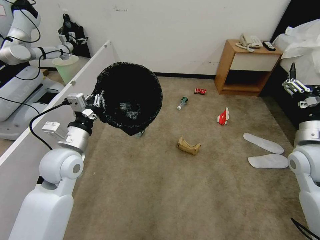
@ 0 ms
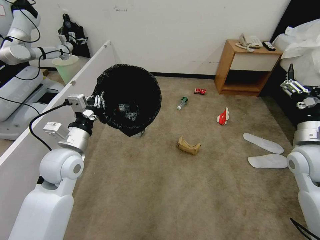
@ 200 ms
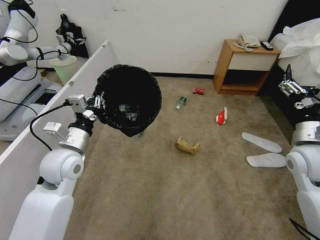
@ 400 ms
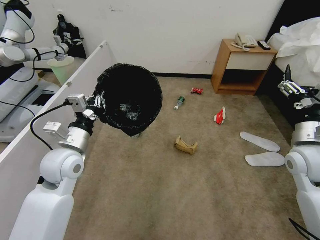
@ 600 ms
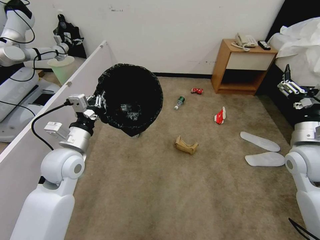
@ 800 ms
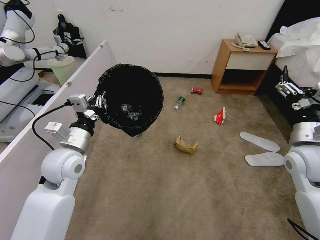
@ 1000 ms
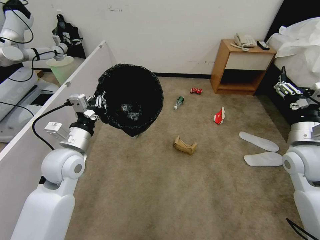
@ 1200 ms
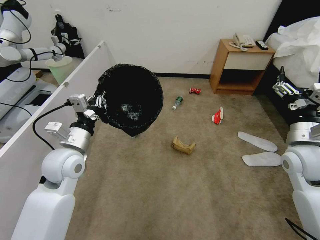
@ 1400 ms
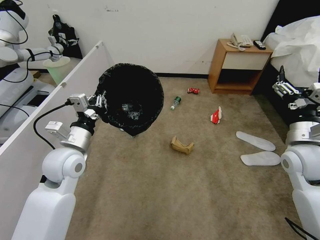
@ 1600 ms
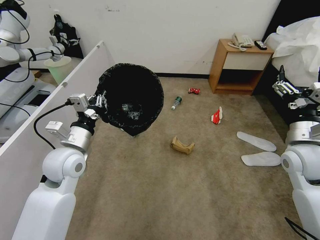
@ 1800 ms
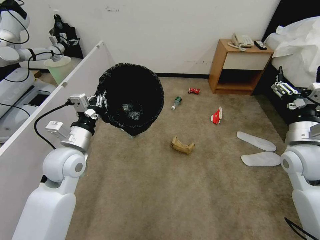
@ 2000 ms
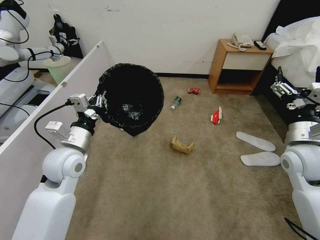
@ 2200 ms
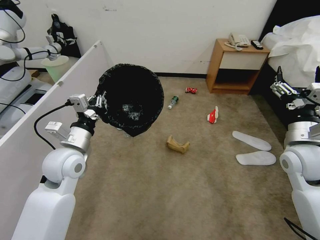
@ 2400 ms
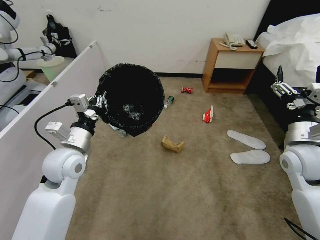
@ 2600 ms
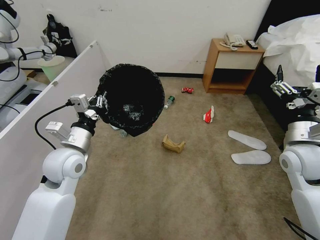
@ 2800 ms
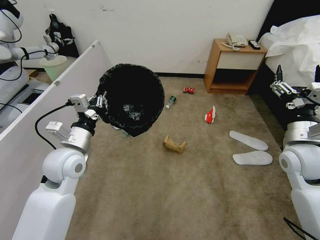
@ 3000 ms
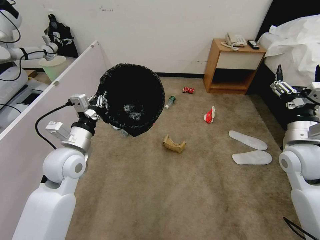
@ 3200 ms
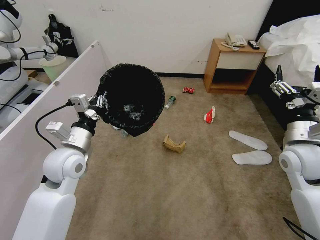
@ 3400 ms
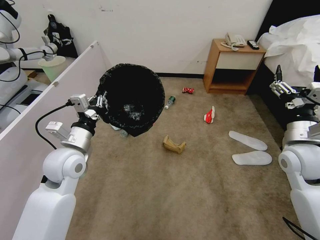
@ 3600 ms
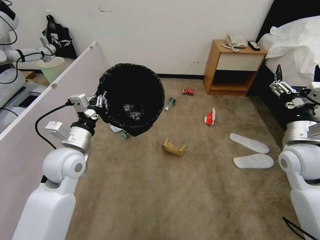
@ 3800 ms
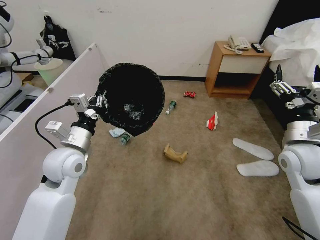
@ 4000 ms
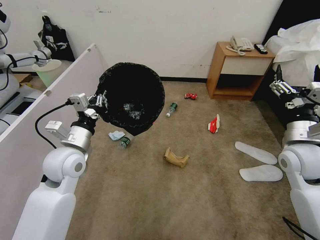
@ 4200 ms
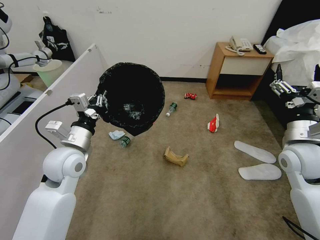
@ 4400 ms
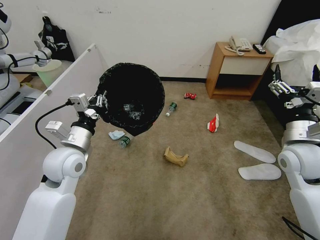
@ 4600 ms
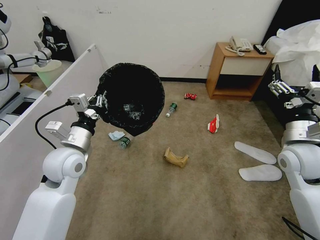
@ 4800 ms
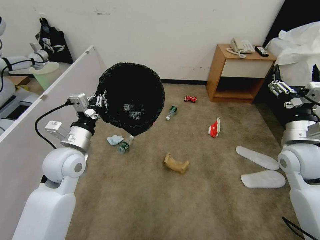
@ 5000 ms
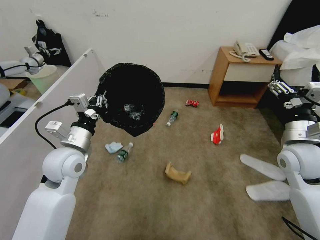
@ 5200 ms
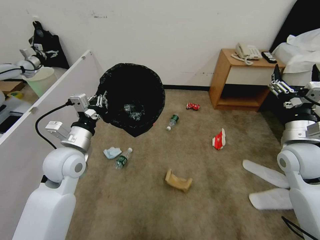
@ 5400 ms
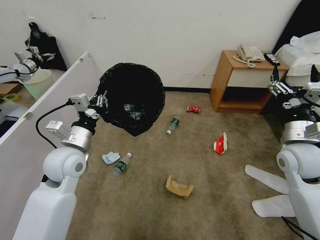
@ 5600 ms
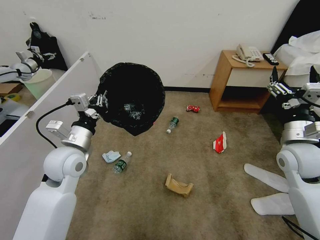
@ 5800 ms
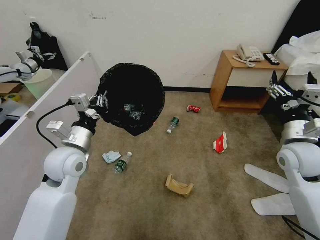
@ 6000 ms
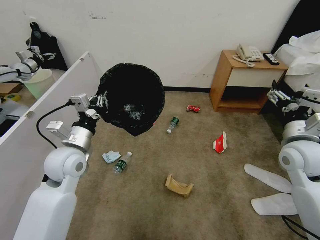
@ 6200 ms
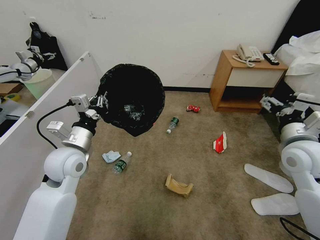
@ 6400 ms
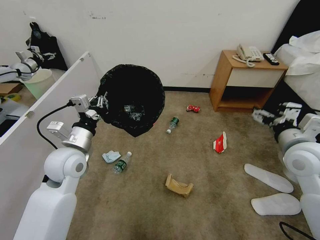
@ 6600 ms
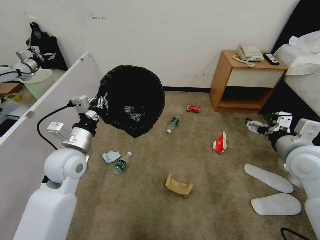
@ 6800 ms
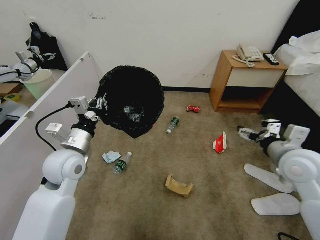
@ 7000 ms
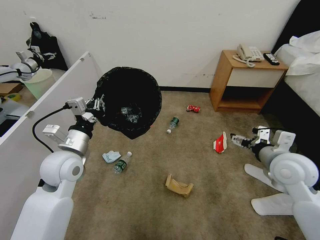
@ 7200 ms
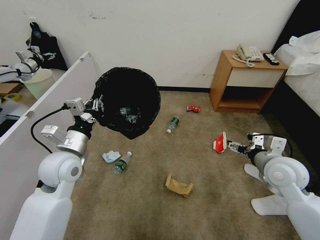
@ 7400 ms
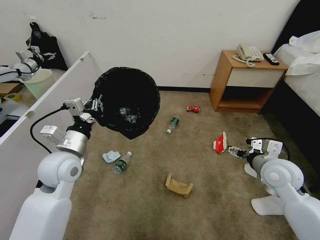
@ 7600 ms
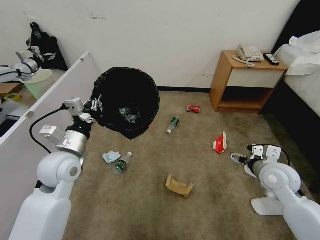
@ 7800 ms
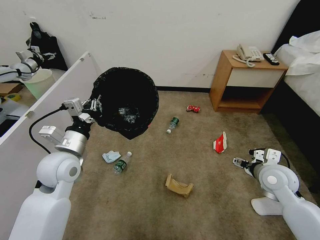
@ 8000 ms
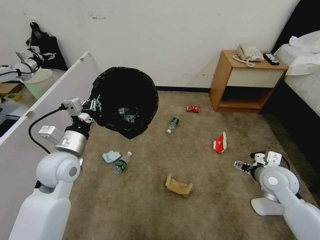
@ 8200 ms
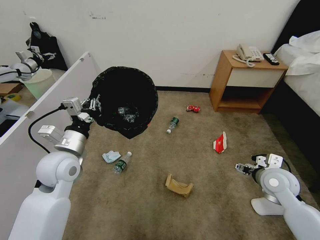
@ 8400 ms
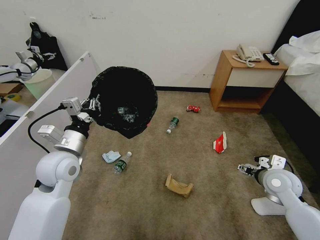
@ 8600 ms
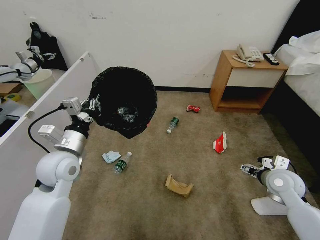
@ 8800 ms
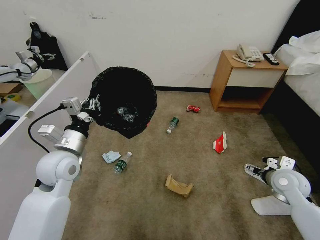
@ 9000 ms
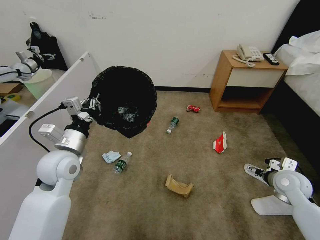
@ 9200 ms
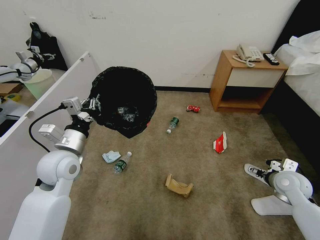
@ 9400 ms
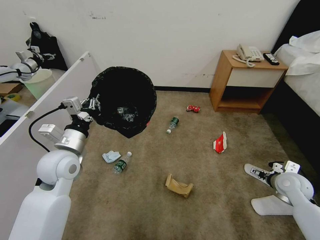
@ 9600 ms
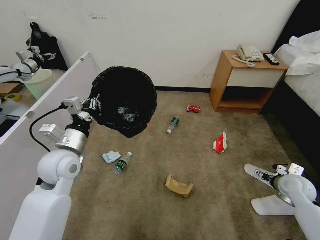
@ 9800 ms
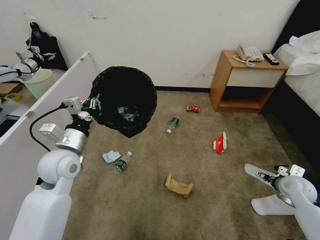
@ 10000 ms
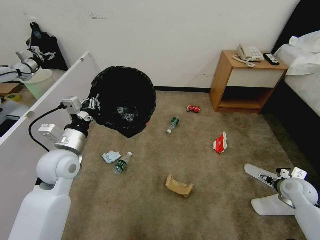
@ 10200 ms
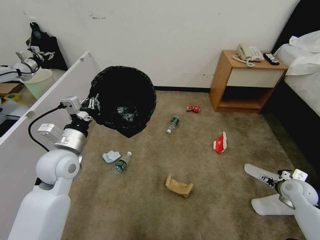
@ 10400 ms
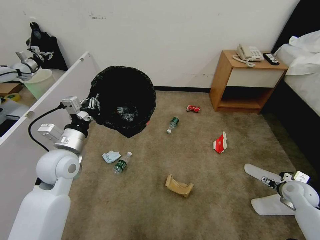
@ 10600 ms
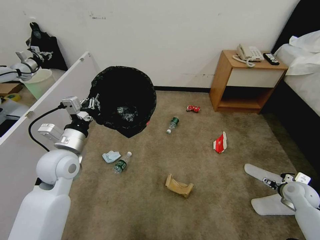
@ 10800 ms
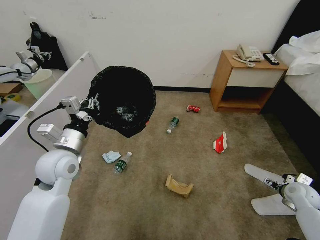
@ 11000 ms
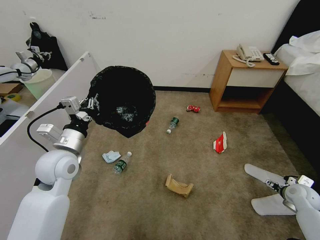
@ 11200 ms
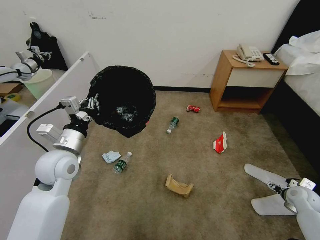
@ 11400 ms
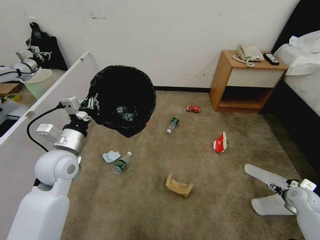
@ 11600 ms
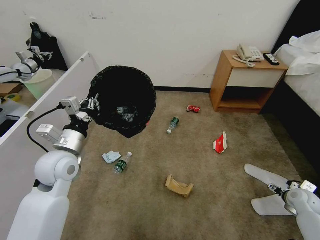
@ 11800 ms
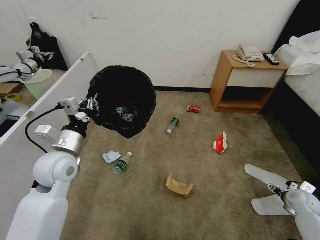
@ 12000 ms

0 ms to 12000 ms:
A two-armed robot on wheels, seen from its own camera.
Task of the whole recording: Pick up the trash bin, then pick up the garbage from the floor and place it into the trash bin.
1600 ms to 4400 ms: Both grippers stay about where they are.
6000 ms to 7600 ms: The right gripper moves downward, some 5 cm.
7600 ms to 9000 ms: The right gripper heads to the right and downward, covering roughly 10 cm.
9000 ms to 10400 ms: The right gripper shifts roughly 10 cm to the right and downward.
10400 ms to 12000 ms: The right gripper shifts approximately 5 cm downward.

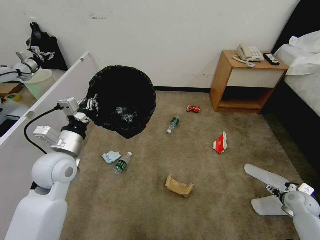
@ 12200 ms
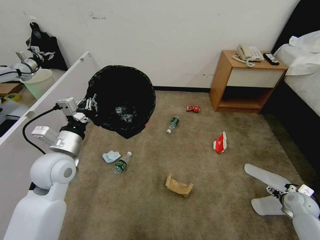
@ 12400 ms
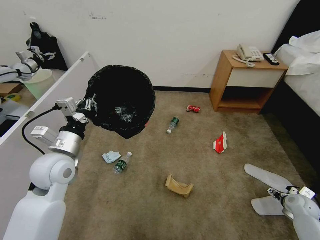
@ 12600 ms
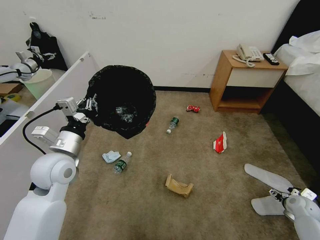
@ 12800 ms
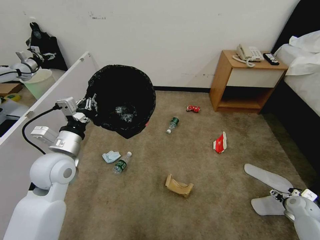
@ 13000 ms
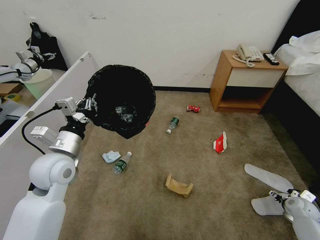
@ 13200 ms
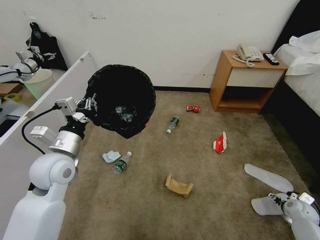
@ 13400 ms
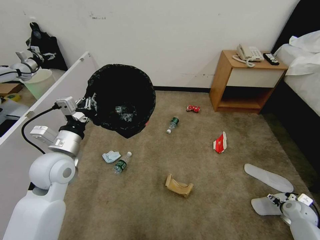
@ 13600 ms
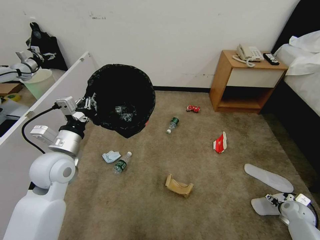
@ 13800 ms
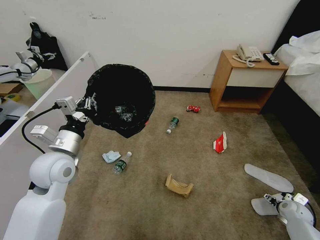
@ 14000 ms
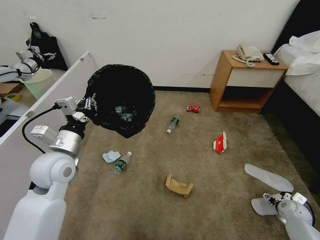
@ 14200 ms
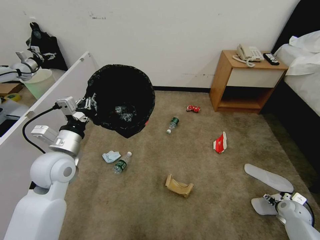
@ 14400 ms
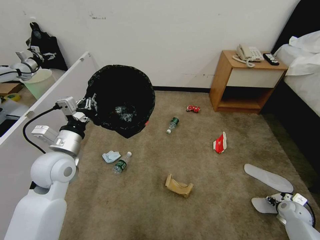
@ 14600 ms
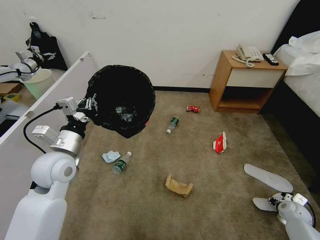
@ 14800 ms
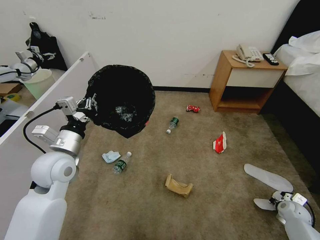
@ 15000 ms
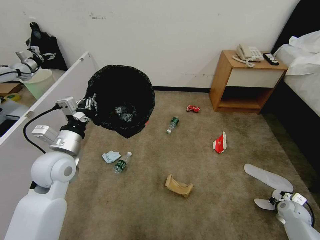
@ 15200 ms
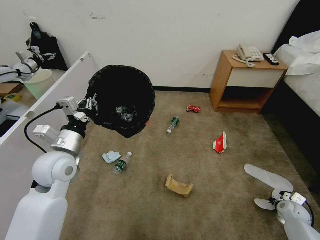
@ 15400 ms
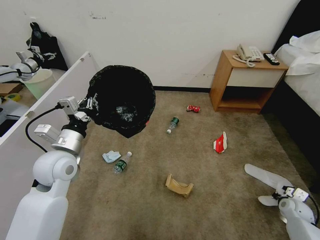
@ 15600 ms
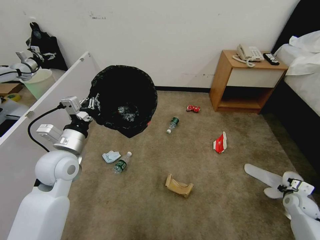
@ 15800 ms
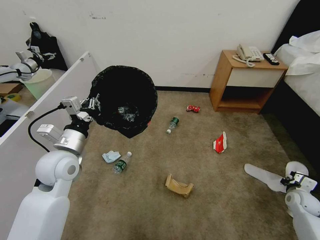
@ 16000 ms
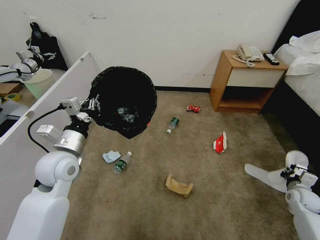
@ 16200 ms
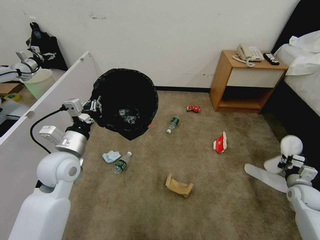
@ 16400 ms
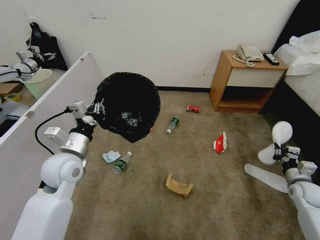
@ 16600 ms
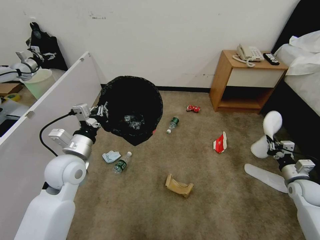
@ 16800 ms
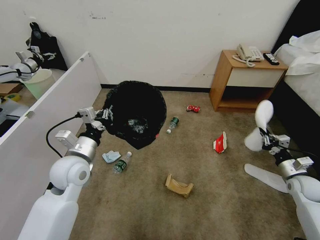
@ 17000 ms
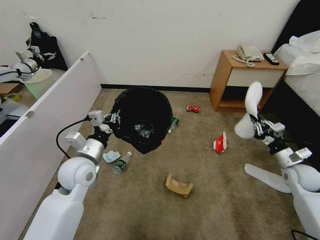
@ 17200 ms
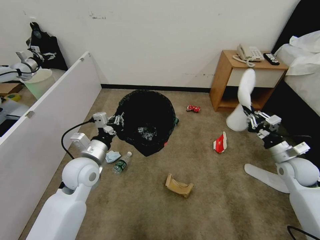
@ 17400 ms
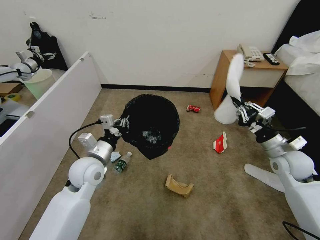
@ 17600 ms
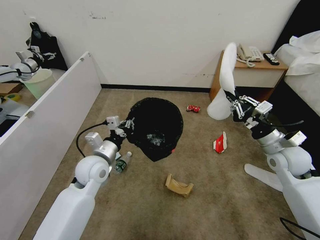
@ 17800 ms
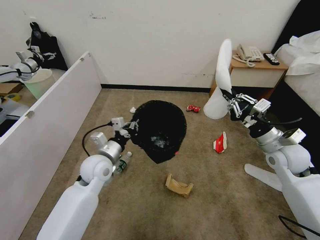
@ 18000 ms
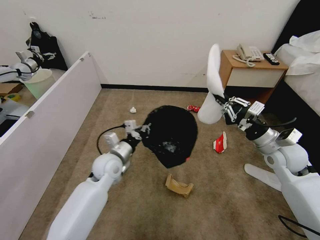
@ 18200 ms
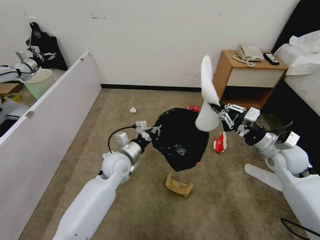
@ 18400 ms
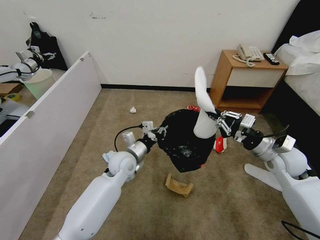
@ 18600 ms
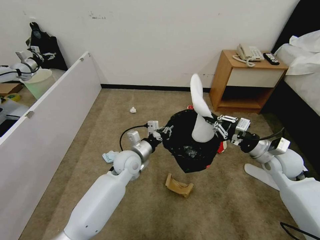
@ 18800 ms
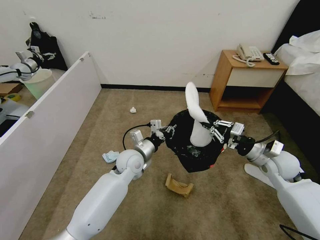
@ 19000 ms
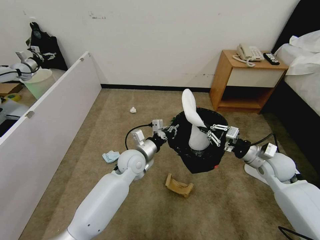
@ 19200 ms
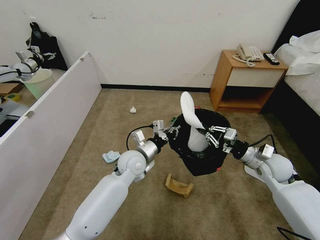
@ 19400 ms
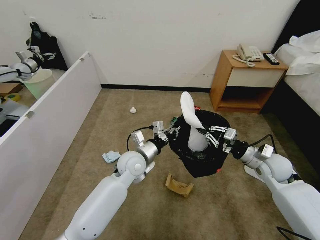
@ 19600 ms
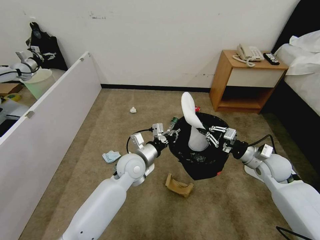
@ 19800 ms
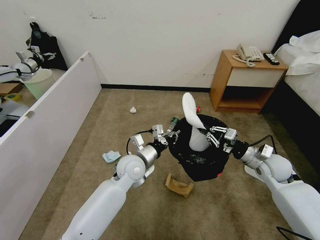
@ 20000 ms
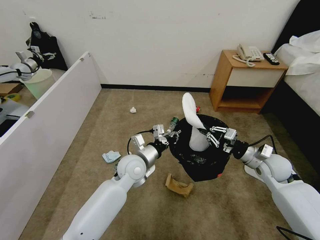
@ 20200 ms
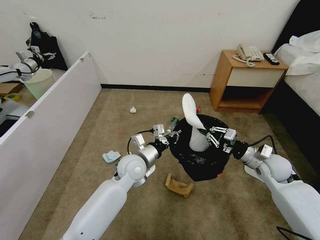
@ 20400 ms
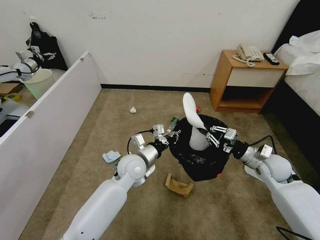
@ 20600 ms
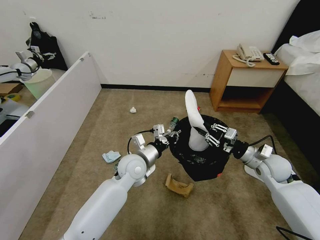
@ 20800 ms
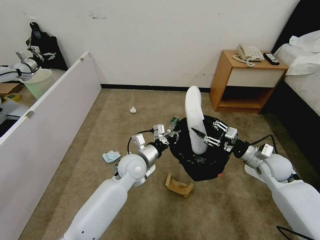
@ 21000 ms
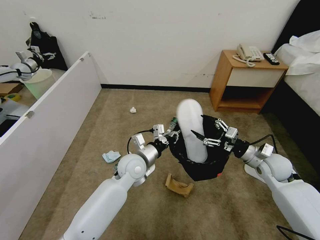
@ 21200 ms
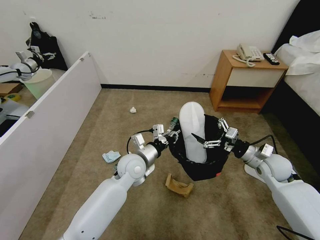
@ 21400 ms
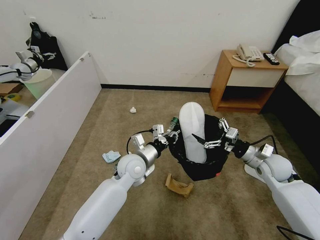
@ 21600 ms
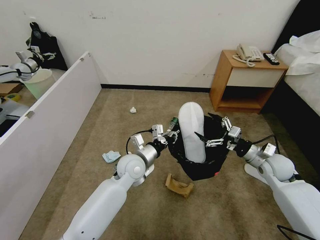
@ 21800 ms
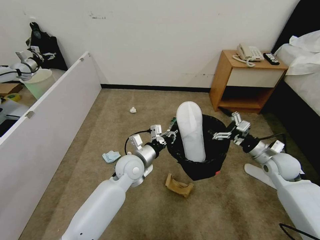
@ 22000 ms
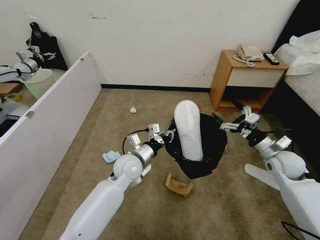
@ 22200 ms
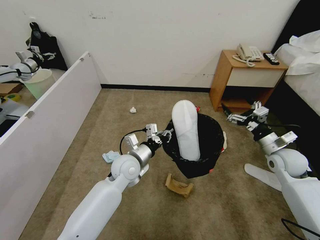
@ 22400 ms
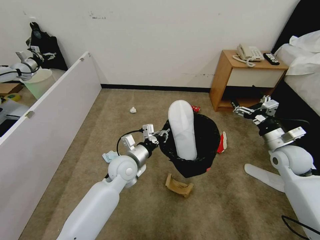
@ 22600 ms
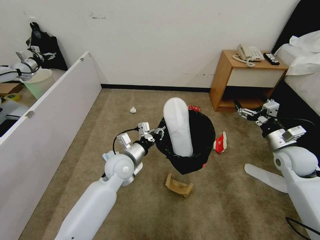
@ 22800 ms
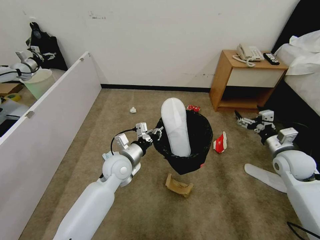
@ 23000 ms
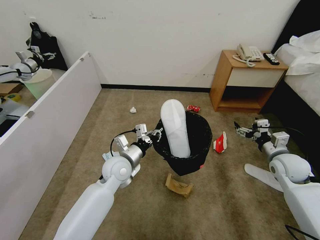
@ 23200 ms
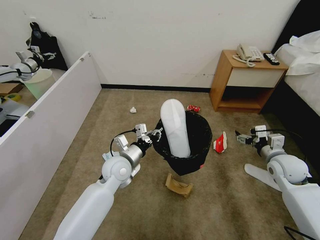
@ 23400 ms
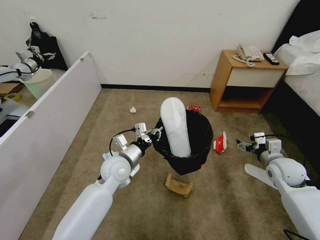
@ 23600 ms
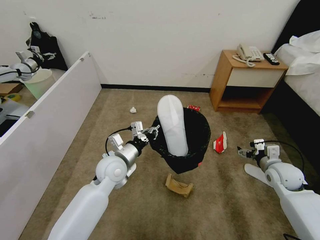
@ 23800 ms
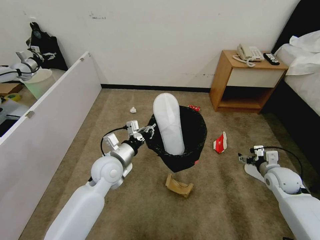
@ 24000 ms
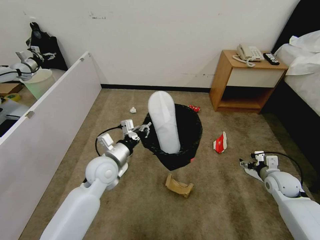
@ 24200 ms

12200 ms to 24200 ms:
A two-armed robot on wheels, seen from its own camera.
Task of the whole recording: Pick up the trash bin, then pick up the garbage from the floor and place it into the trash bin.
12200 ms to 13800 ms: The right gripper is displaced downward by about 5 cm.
13800 ms to 15200 ms: The right gripper closes.
15200 ms to 16600 ms: The right gripper shifts some 10 cm upward.
16600 ms to 18200 ms: The right gripper travels upward and to the left by about 25 cm. Meanwhile the left gripper shifts approximately 15 cm to the right, downward and forward.
18200 ms to 19800 ms: The left gripper travels to the right by approximately 10 cm. Meanwhile the right gripper is displaced downward by approximately 5 cm.
19800 ms to 21200 ms: The right gripper opens its fingers.
21200 ms to 22600 ms: The right gripper shifts by approximately 5 cm.
22600 ms to 24200 ms: The left gripper is displaced to the left by about 5 cm; the right gripper is displaced downward by approximately 10 cm.
